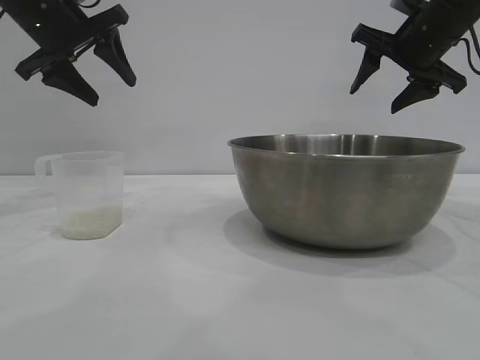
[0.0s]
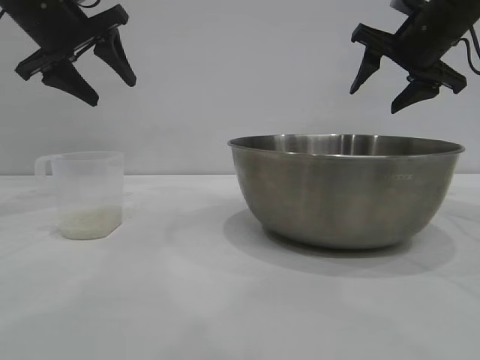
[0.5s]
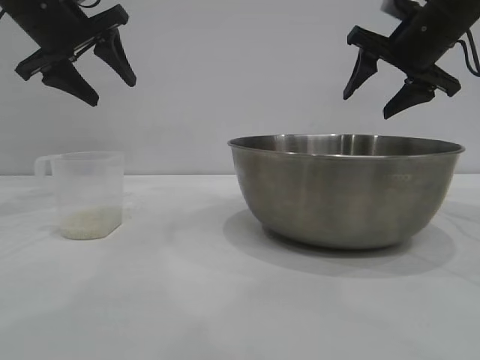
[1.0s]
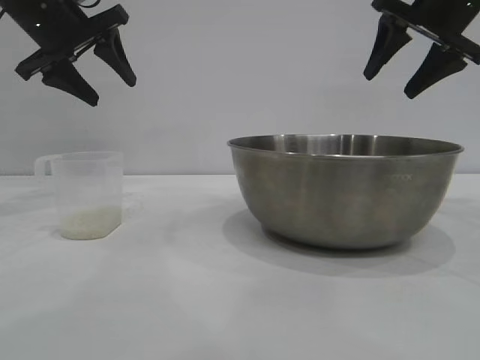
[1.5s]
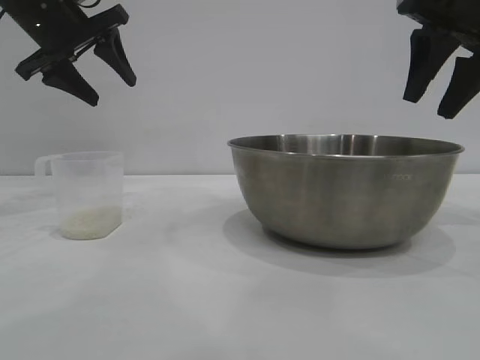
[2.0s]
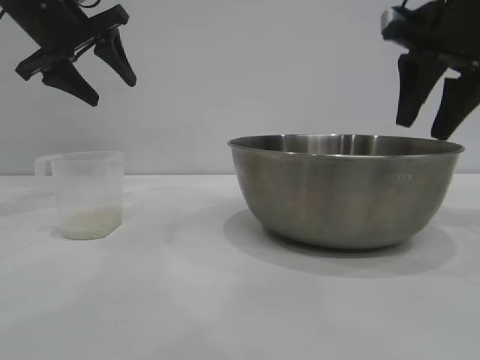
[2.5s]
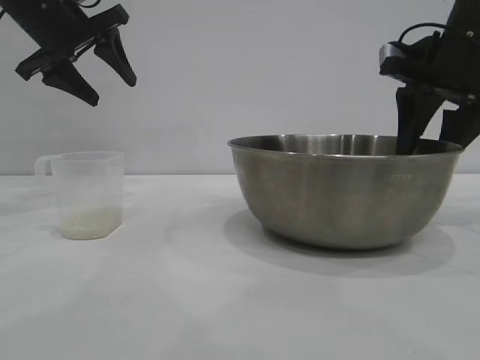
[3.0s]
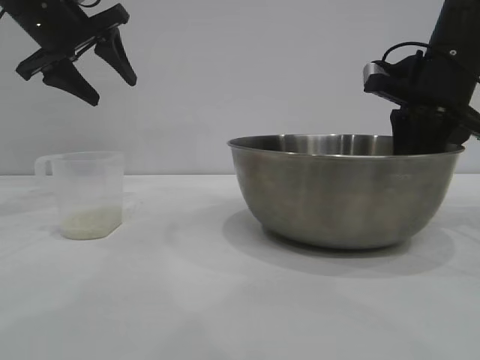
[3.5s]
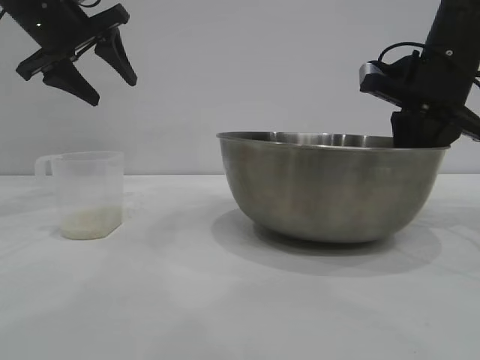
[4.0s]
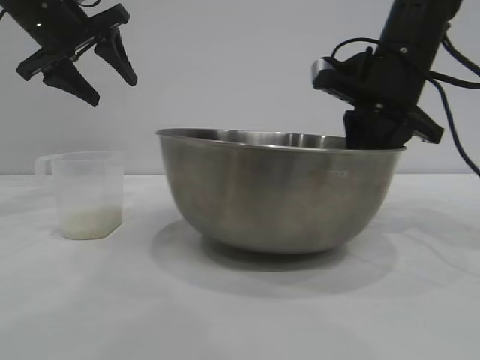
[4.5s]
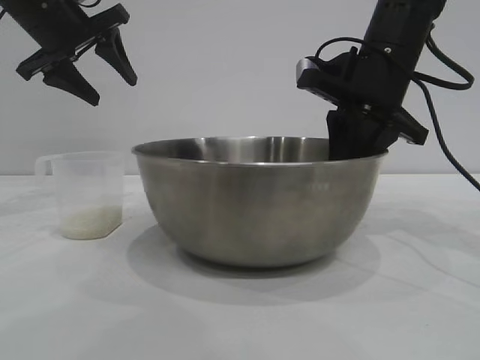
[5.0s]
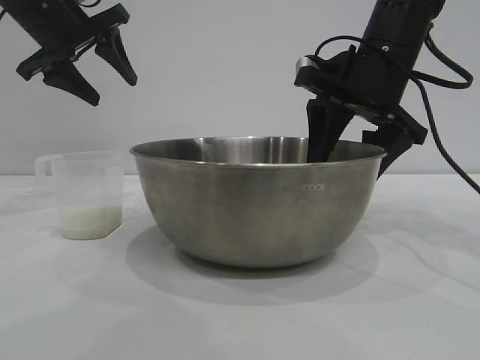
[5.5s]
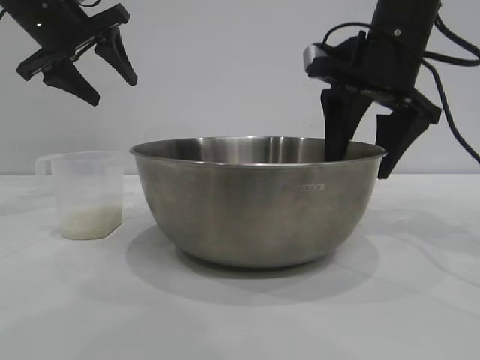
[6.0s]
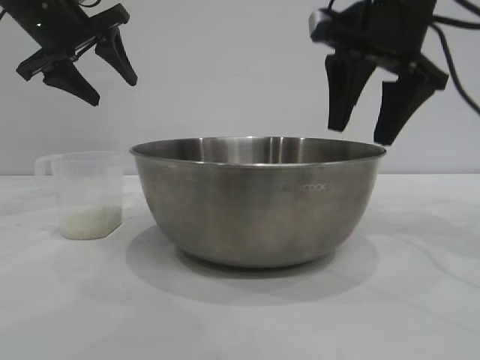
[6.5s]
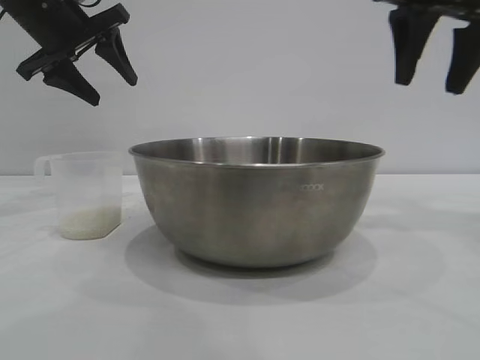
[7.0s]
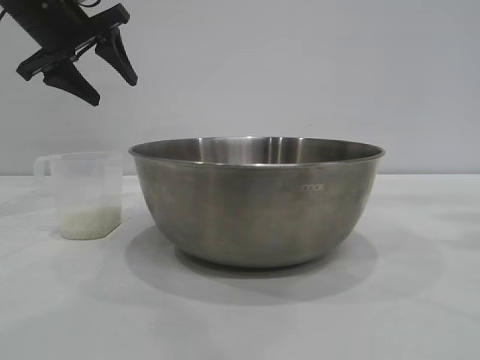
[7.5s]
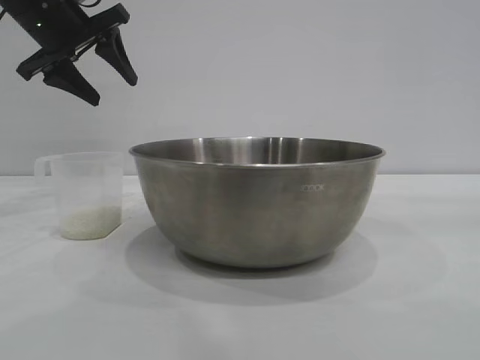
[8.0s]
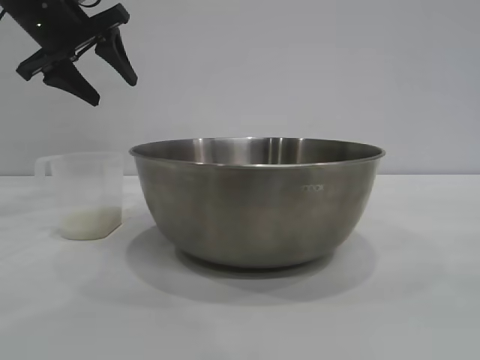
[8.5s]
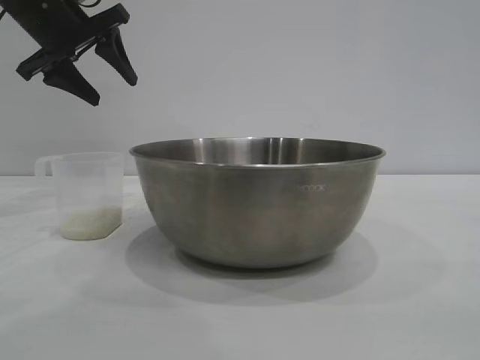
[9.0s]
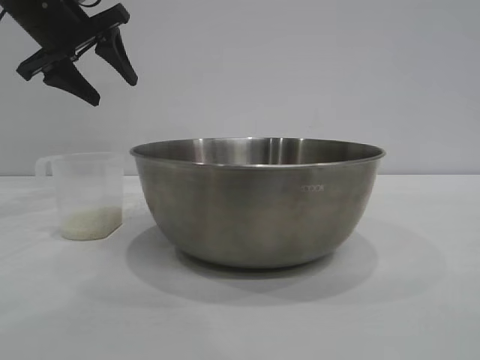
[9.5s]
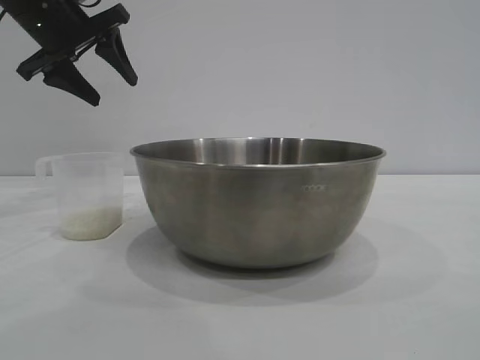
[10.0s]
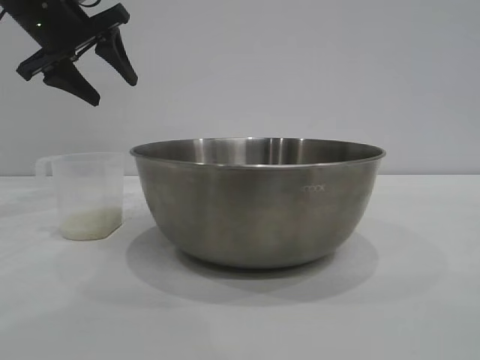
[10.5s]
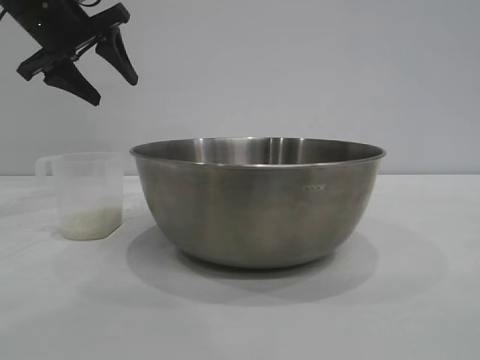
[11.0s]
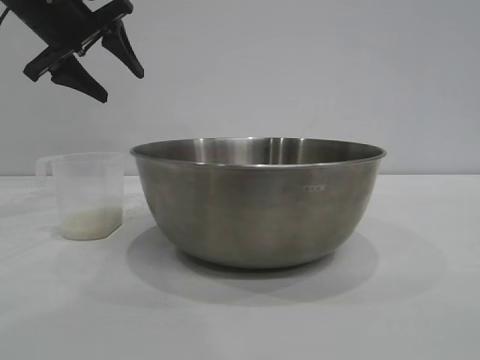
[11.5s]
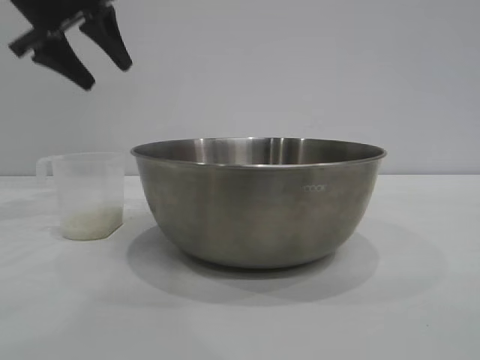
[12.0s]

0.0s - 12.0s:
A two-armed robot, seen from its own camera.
Task of the whole recording: the right gripper grasp the rice container and place it in the center of the table, the left gripper grasp the rice scoop and pour the rice into the rice container.
Step, 0.0s - 6.5s: Move the bowl to the center of view with the right gripper.

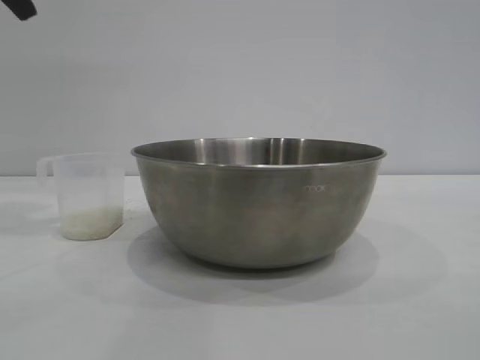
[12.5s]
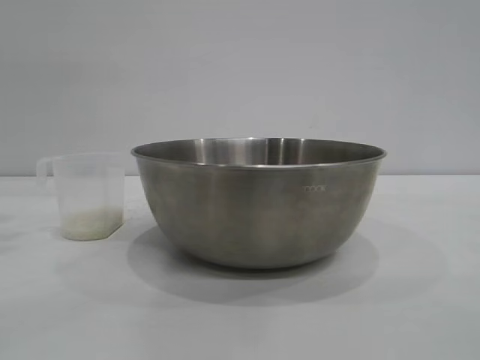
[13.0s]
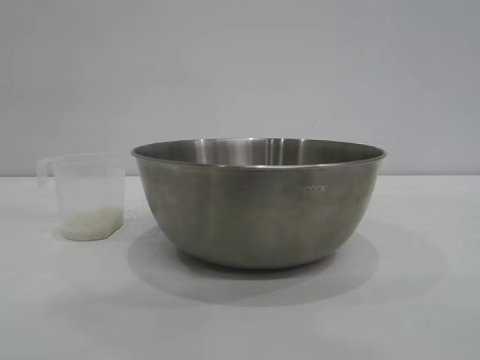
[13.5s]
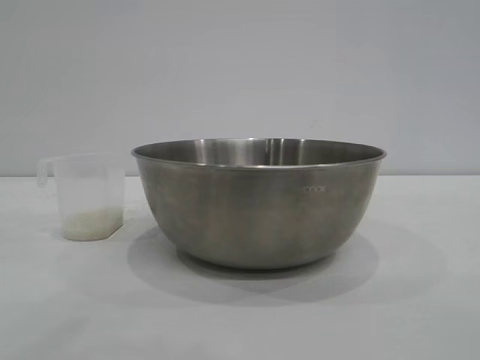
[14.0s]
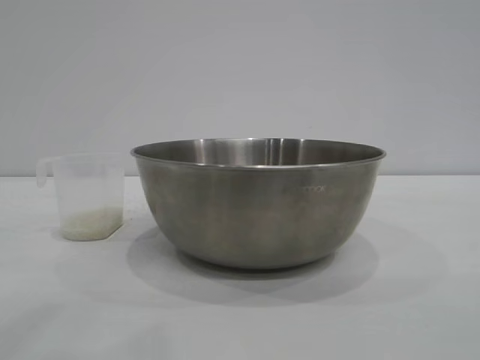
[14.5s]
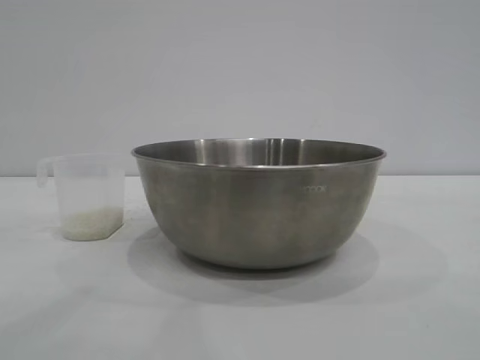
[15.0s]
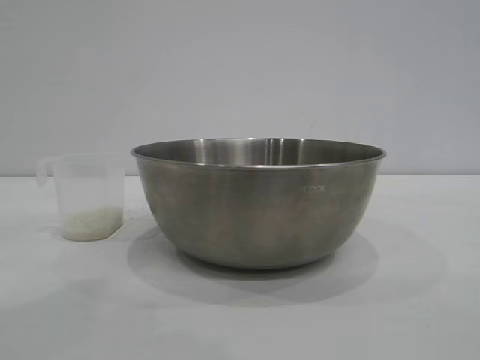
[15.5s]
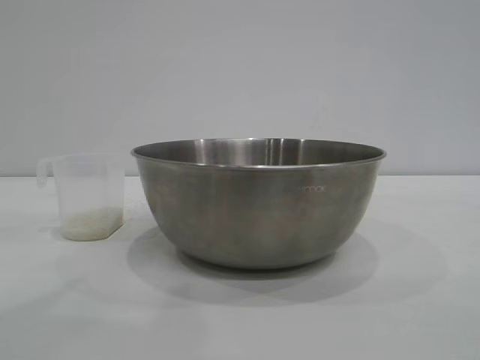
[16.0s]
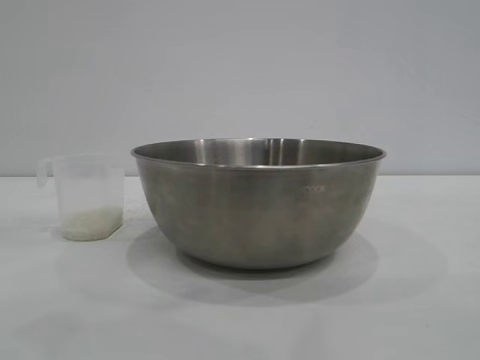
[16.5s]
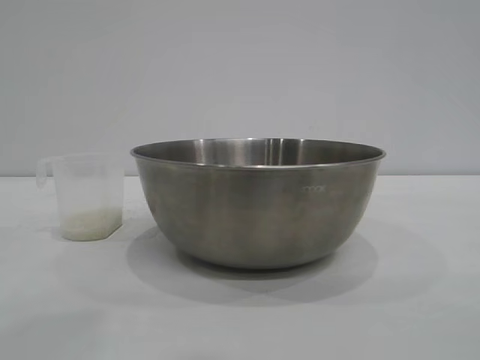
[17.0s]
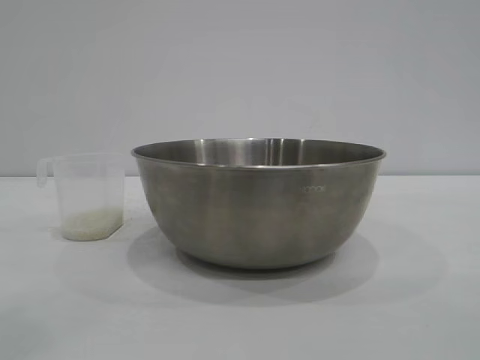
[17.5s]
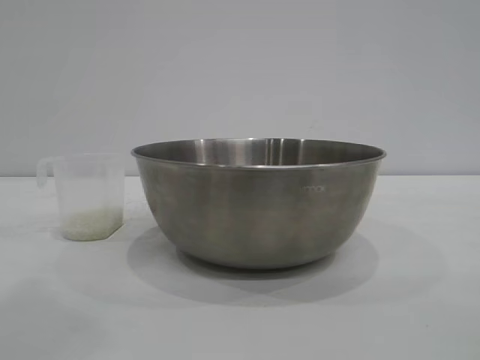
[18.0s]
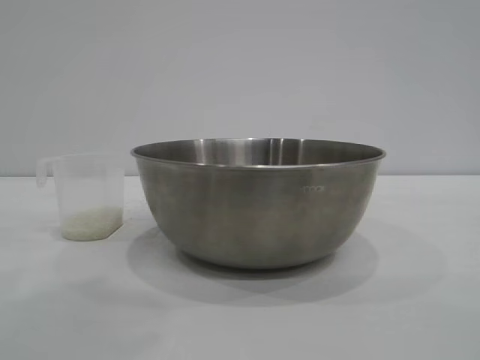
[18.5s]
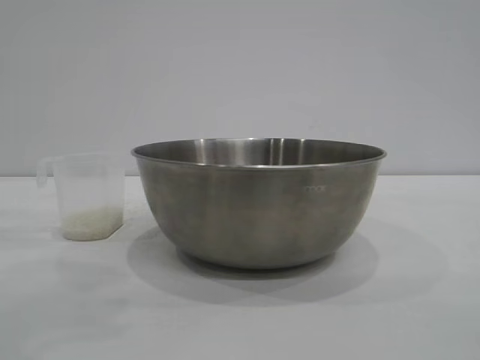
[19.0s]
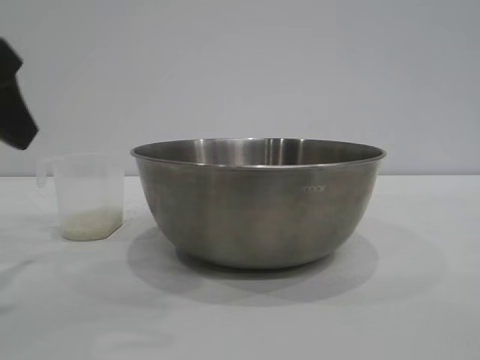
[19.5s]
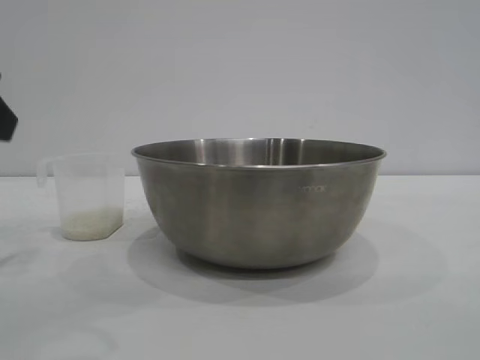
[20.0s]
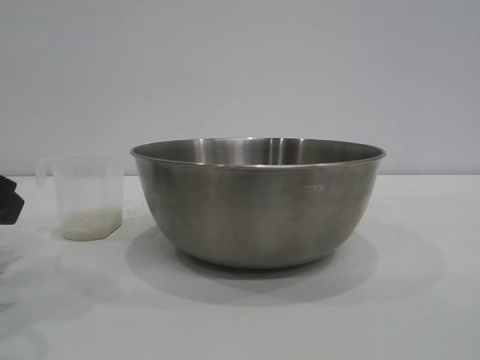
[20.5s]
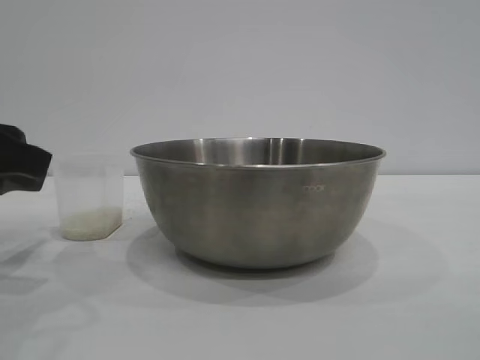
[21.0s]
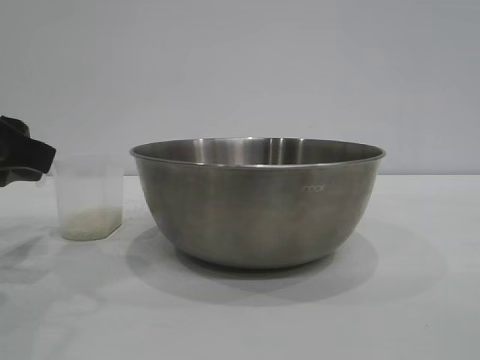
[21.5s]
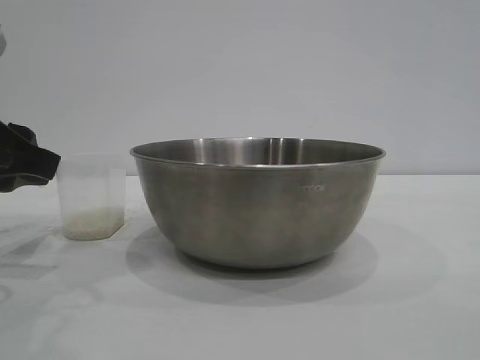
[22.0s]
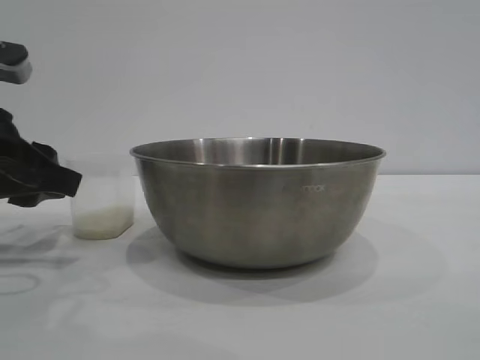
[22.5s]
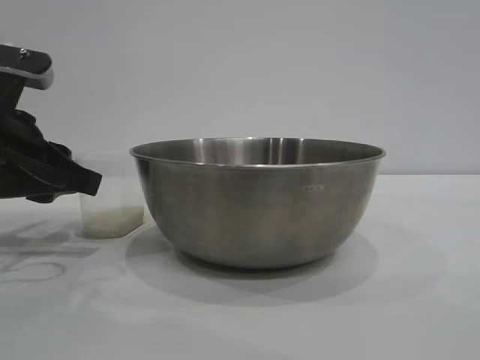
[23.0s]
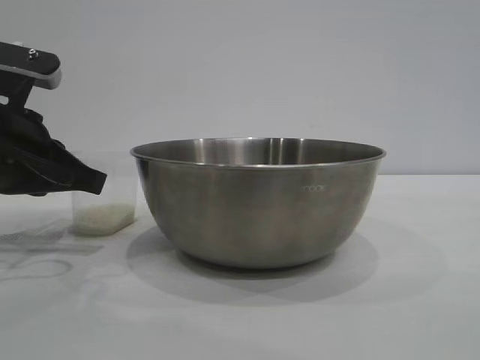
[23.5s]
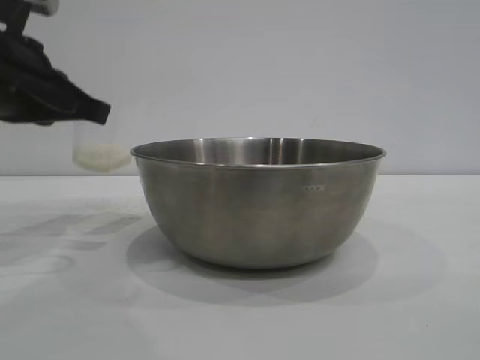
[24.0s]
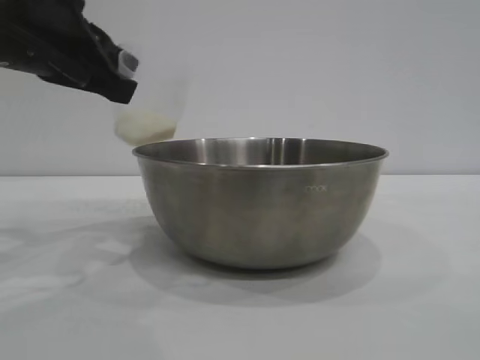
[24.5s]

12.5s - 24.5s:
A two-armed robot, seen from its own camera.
Task of the whole recording: the right gripper grasp the rice container and place it in the center of the table, the left gripper grasp the rice scoop and pour the rice into the rice container.
Step, 12.5s - 24.0s: Pick up the cup with rice in it with the left gripper.

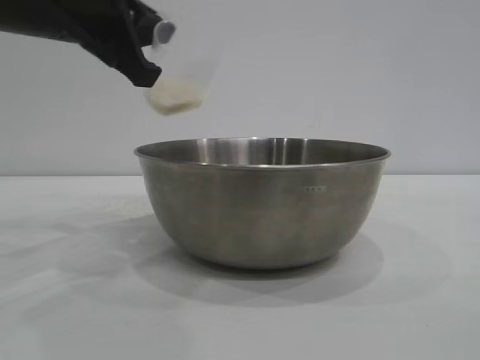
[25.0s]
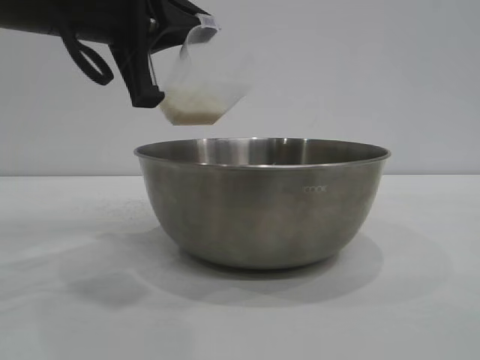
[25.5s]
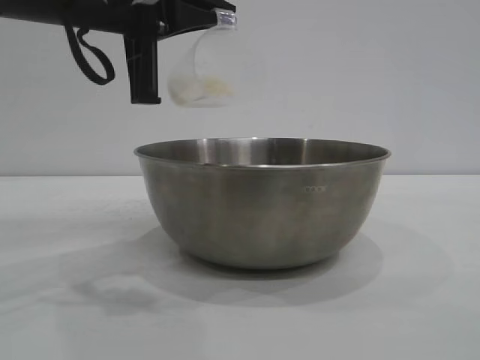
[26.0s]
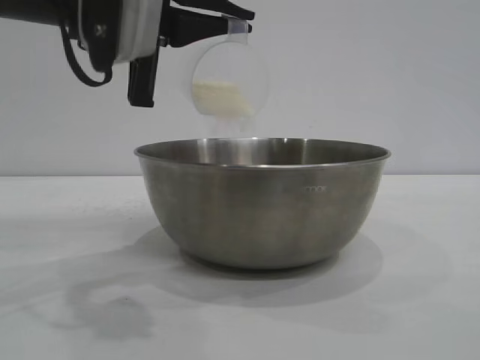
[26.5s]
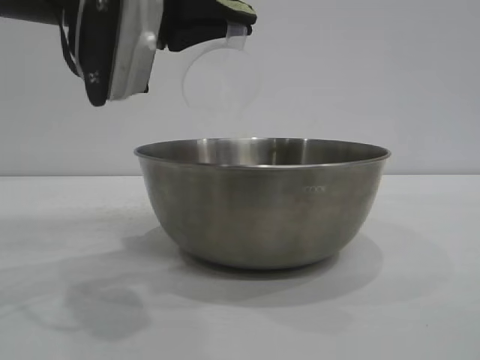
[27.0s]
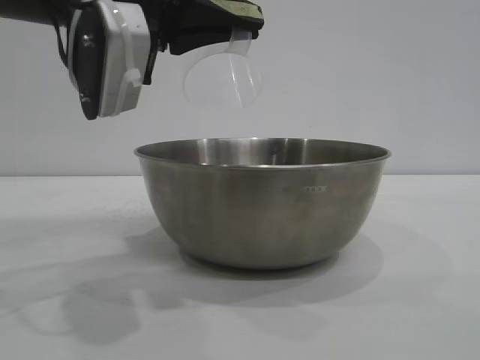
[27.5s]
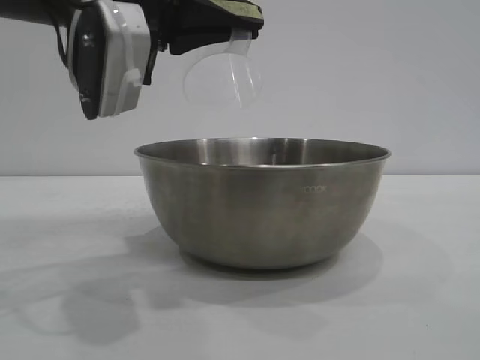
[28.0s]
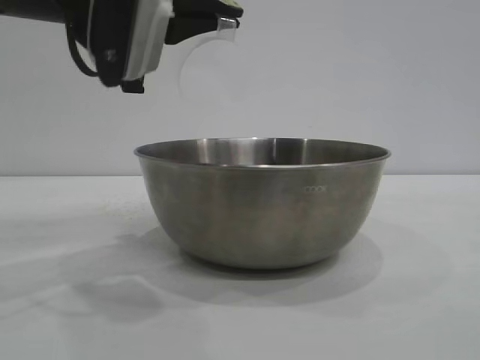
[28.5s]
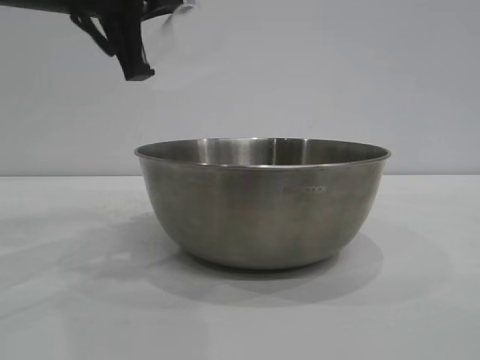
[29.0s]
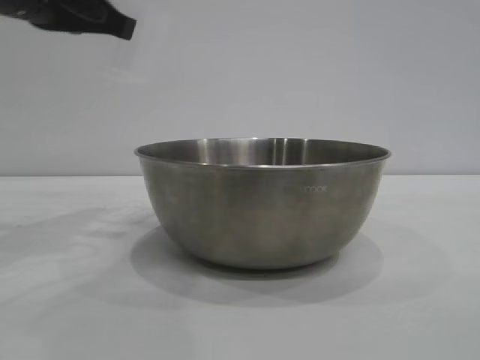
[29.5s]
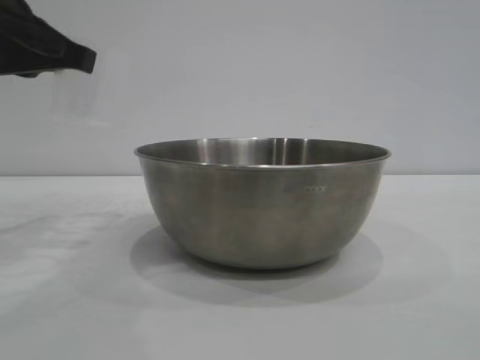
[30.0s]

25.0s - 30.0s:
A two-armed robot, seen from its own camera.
Task of the whole recording: the right gripper grasp the rice container and place it in the center of the table, the left gripper grasp the rice scoop and pour the rice into the rice container.
Step, 25.0s - 28.0s: Pour the rice from the cup into the bowl with the left gripper.
